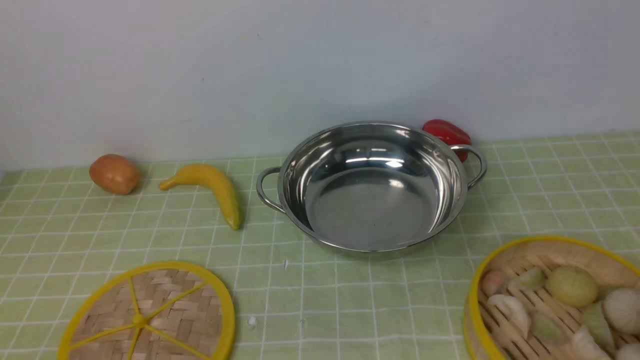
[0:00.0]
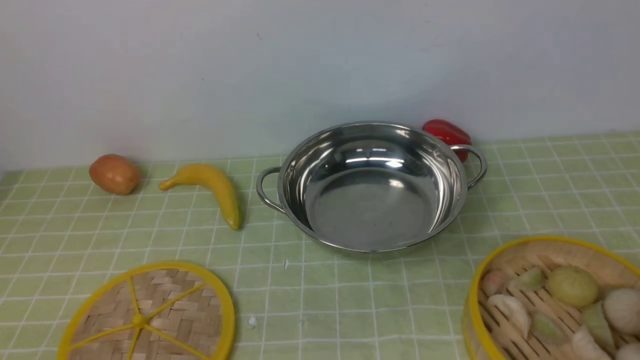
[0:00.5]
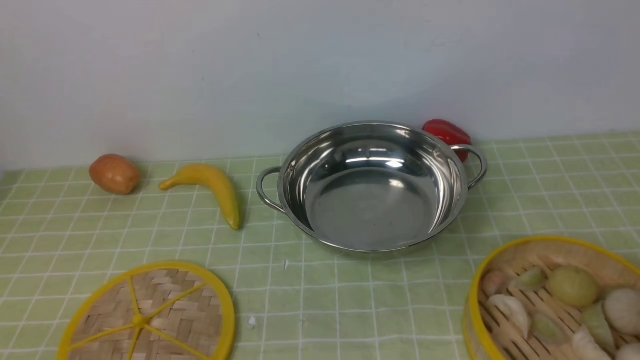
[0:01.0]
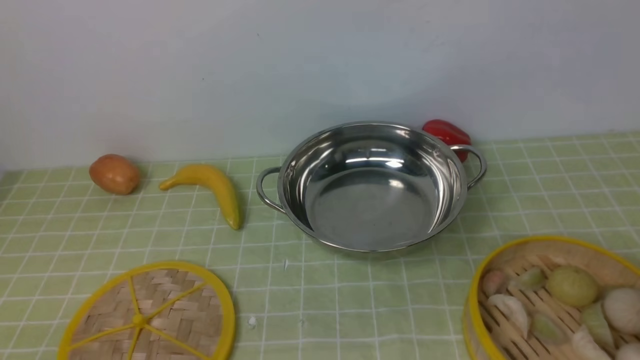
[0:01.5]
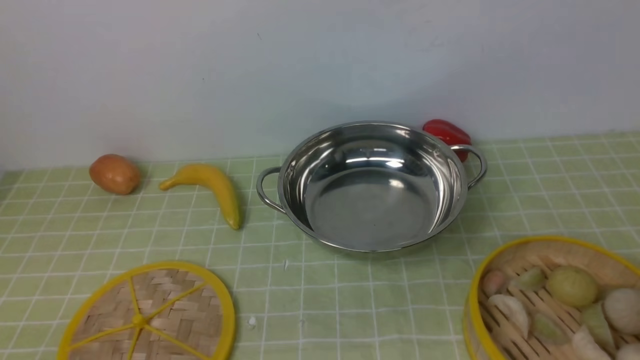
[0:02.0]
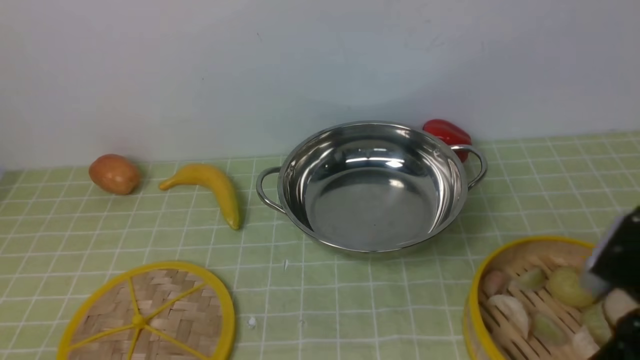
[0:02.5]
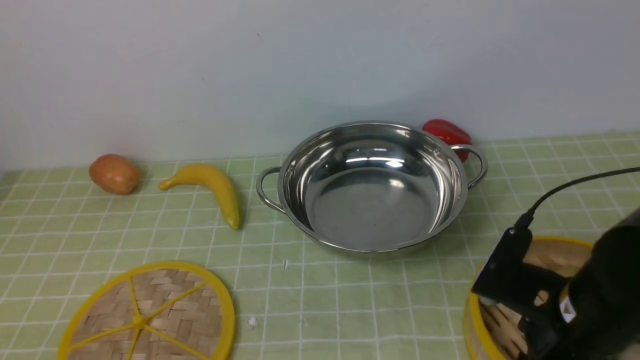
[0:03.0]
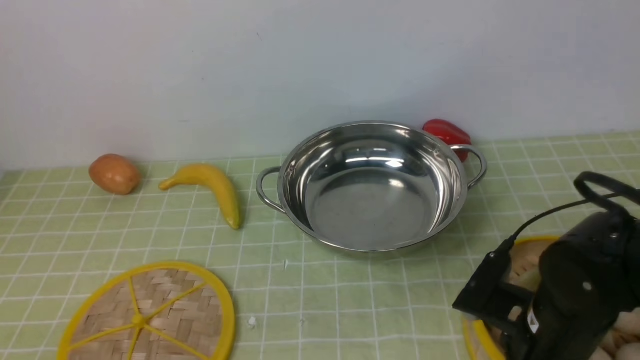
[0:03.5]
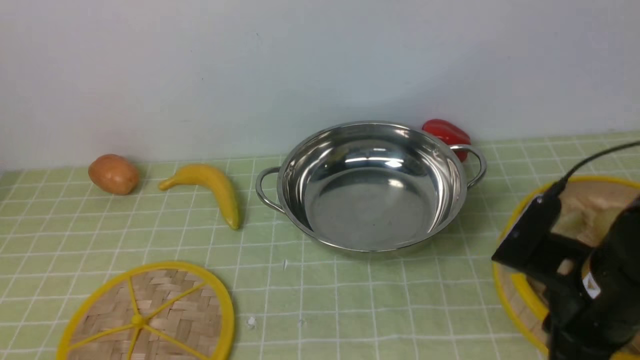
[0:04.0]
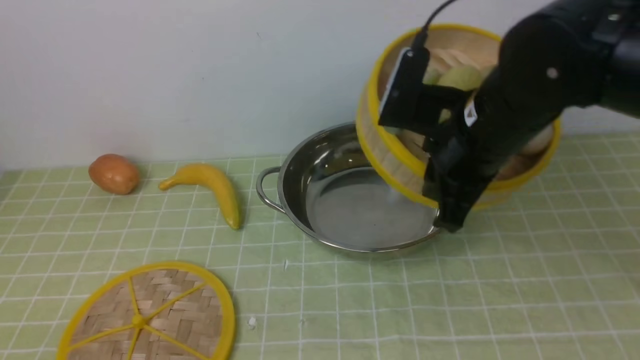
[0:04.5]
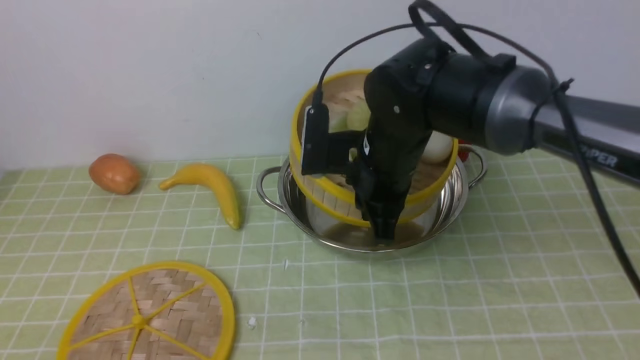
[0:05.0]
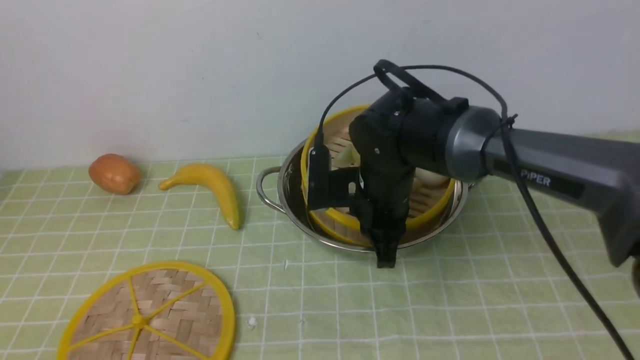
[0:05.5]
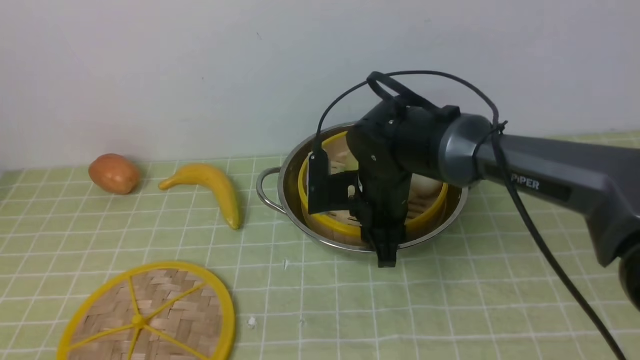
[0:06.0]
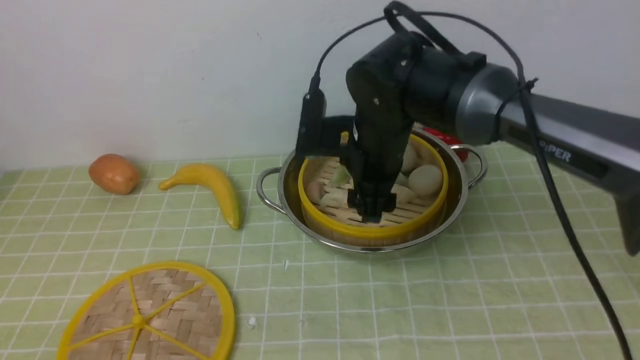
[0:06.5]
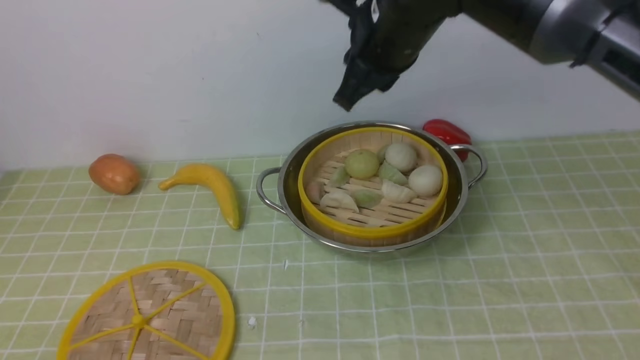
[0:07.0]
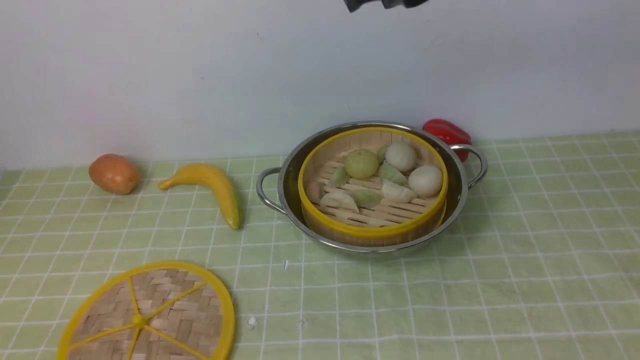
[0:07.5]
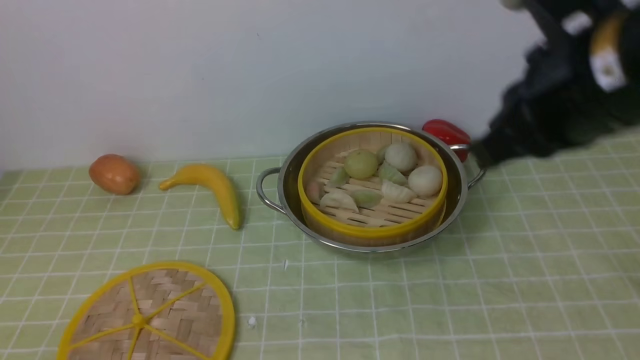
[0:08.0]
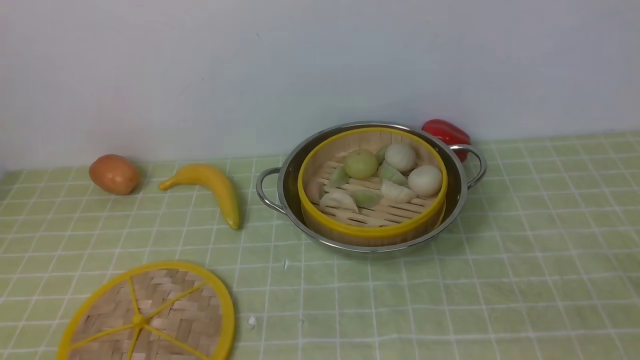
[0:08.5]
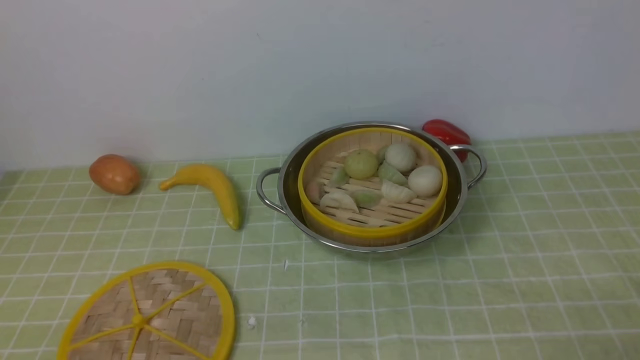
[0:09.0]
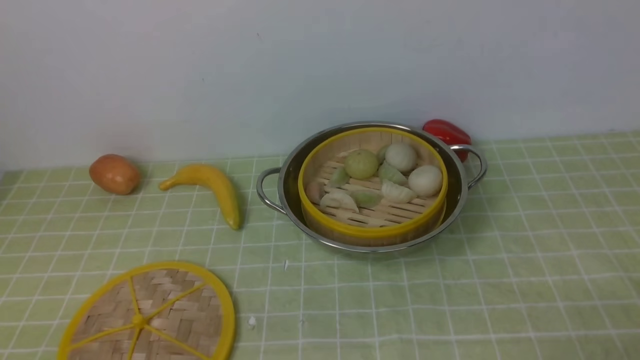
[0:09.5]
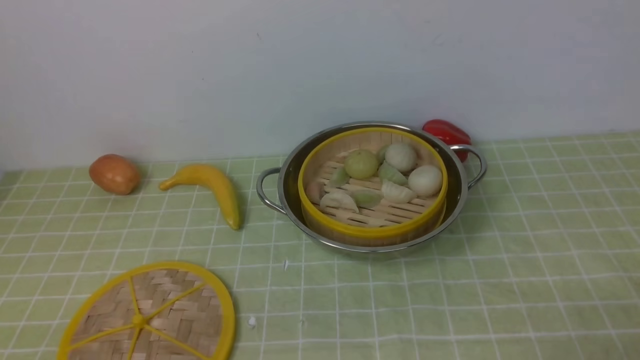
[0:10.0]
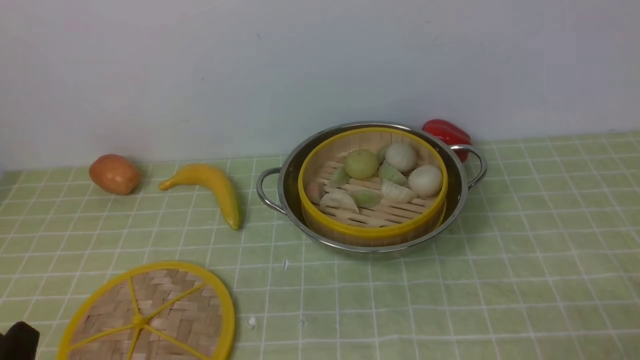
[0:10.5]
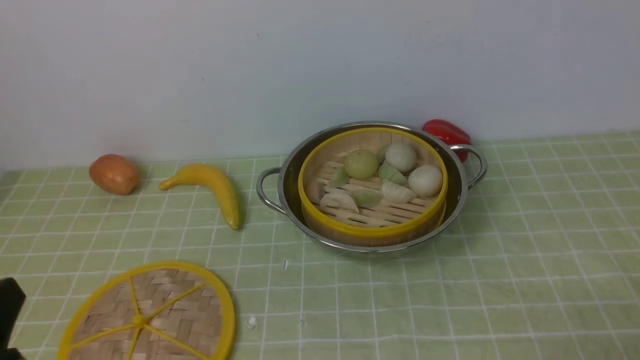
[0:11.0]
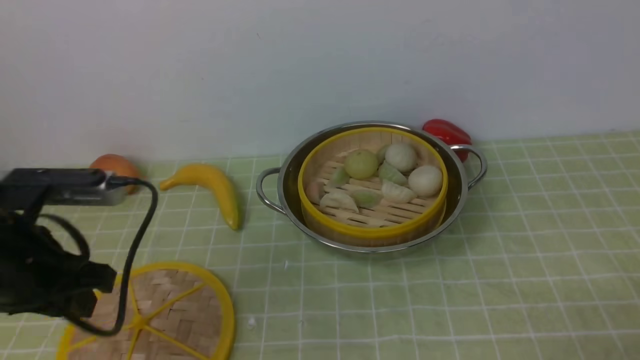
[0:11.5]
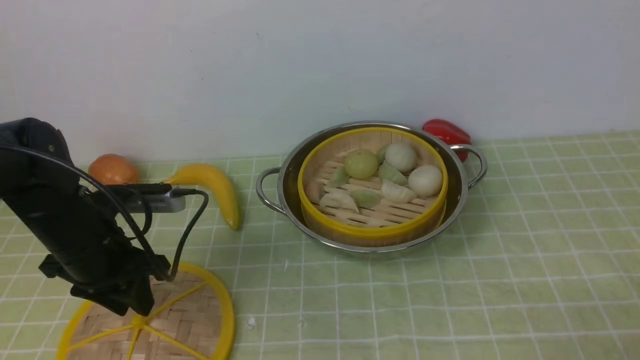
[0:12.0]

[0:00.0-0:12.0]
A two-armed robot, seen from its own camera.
Task of the whole recording: place the steamer in the pot on the green tablecloth, and put the lid on the steamer.
Step, 0:00.0 to 0:04.0: use the right arm to lift the steamer closest to it.
Step, 0:04.5 to 0:06.5: use the right arm to put the steamer into the iron steamer pot in the middle.
0:02.0 to 0:04.0: The right gripper is displaced forward, downward and to the left by roughly 20 cm, and closes up.
0:04.0 to 0:06.0: The right gripper heads forward and to the left, covering approximately 20 cm, and opens its fingers.
0:06.0 to 0:08.0: The right gripper is displaced upward, backward and to the right by about 30 cm, and closes its fingers.
0:08.0 to 0:10.0: The right gripper heads downward, backward and to the right, covering approximately 30 cm.
0:10.0 to 0:12.0: The left gripper heads forward, covering roughly 25 cm.

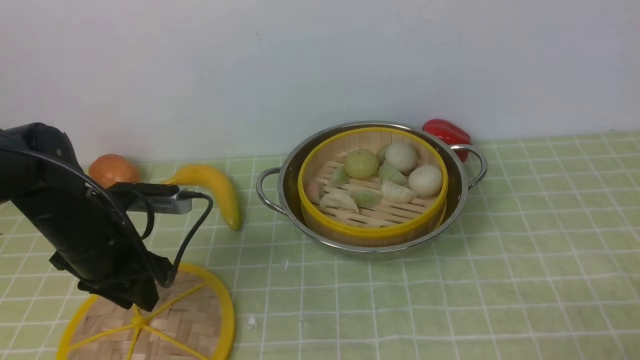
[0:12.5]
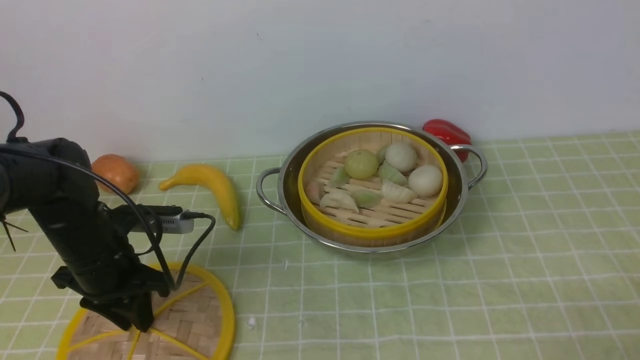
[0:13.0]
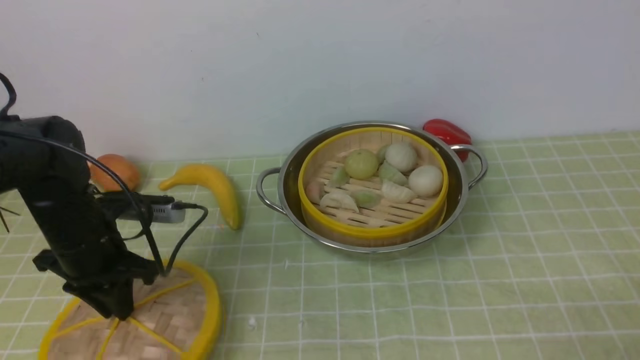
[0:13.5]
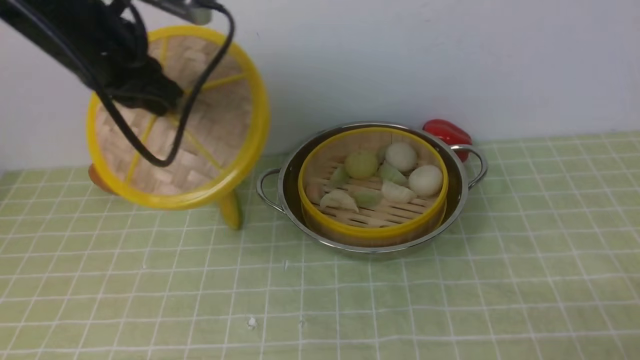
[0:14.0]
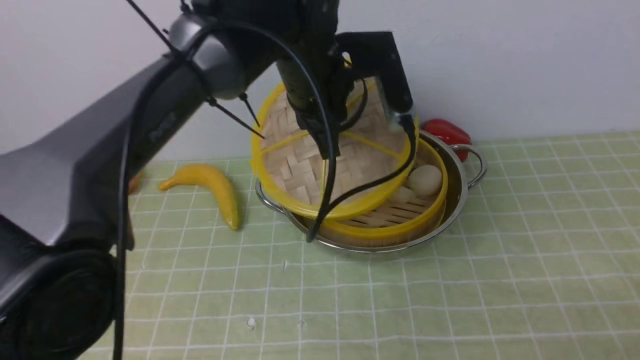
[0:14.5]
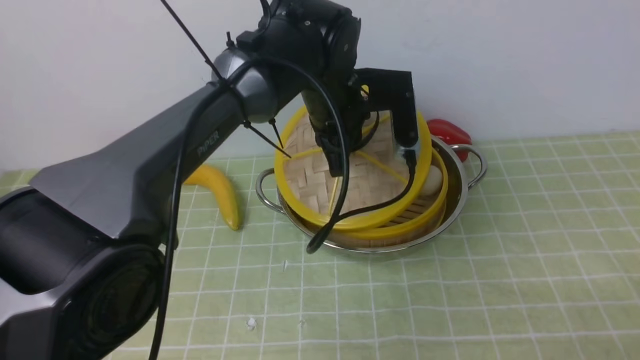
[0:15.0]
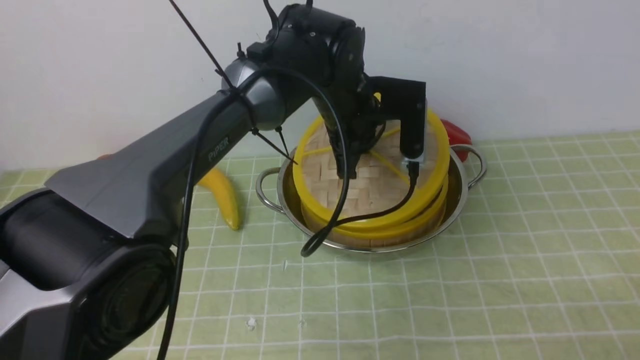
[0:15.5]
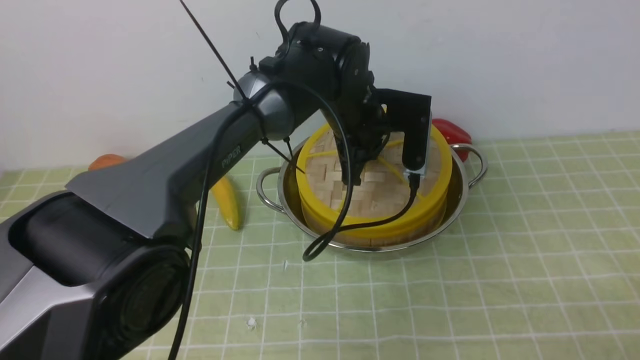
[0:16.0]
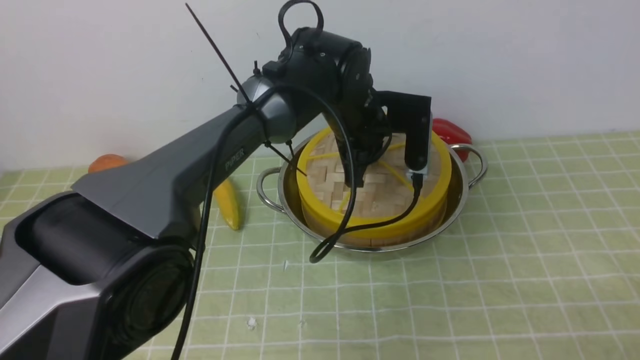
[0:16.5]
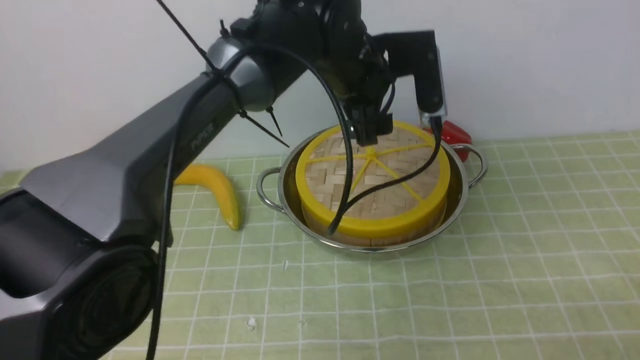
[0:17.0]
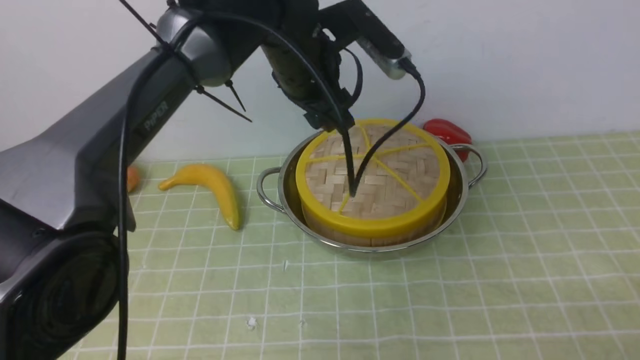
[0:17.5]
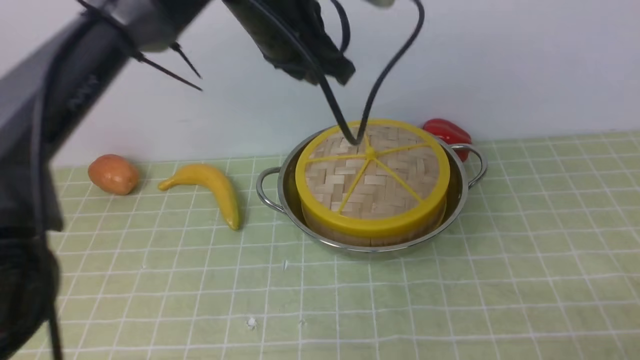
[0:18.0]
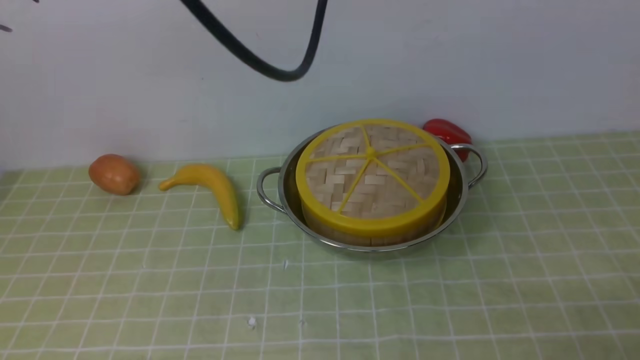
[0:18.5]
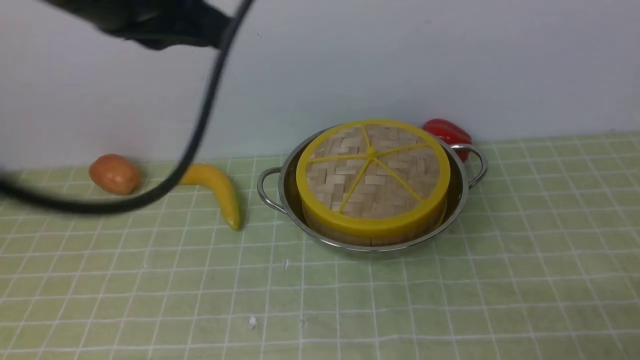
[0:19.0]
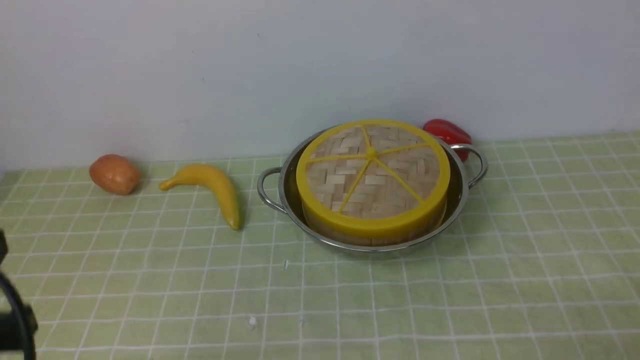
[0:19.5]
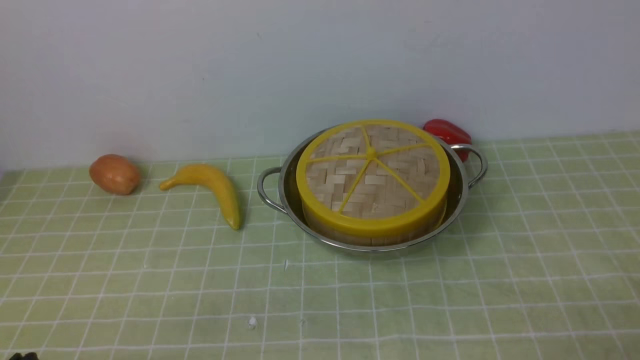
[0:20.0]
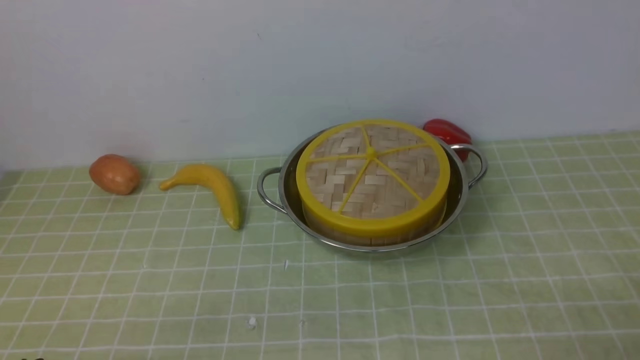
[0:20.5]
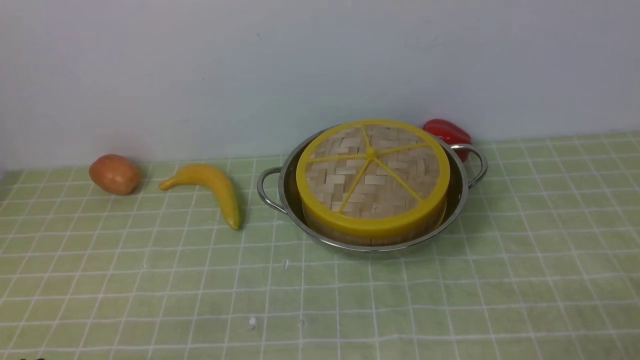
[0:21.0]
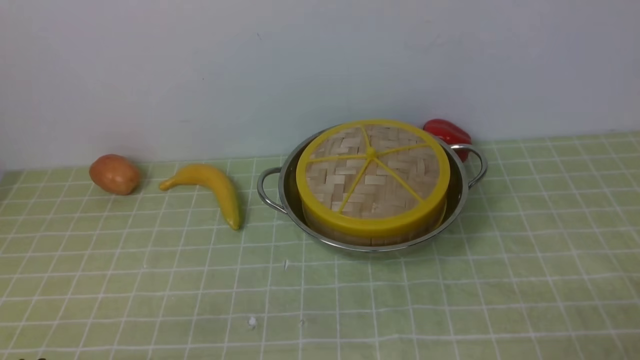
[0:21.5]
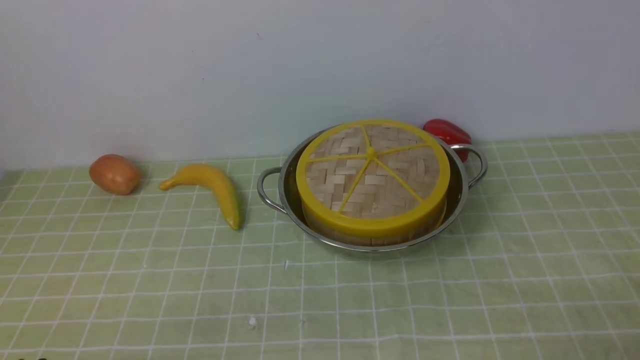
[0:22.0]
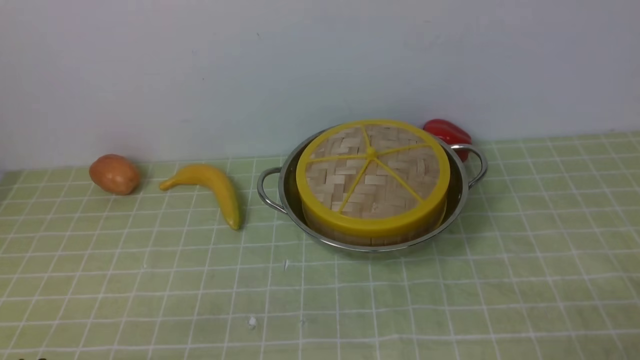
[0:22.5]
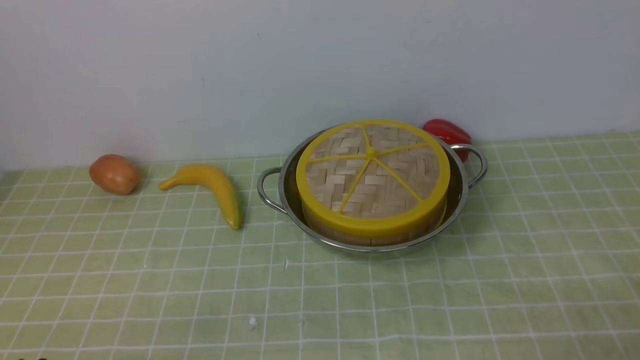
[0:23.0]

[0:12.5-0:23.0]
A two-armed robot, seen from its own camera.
Task of the whole recording: place the steamer in the pot on the green tablecloth, and put the lid on the steamer.
Step, 0:14.0 to 0:18.5: use the left arm to place the steamer lid on the steamer.
0:12.5 to 0:14.5: The left gripper heads to the right, upward and forward, covering approximately 30 cm.
0:14.5 to 0:16.5: The left gripper moves downward, roughly 5 cm.
0:16.5 to 0:19.0: The left gripper shifts about 35 cm upward, backward and to the left, and opens, then closes again.
0:19.0 to 0:21.0: The left gripper moves downward and backward, roughly 35 cm.
0:21.0 to 0:23.0: Both grippers stay put.
